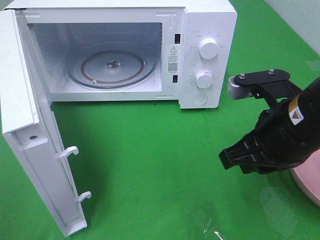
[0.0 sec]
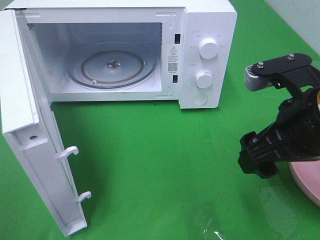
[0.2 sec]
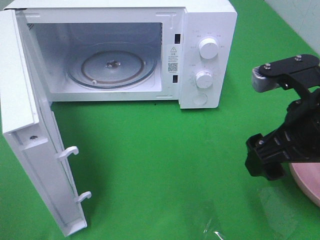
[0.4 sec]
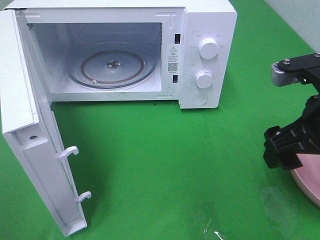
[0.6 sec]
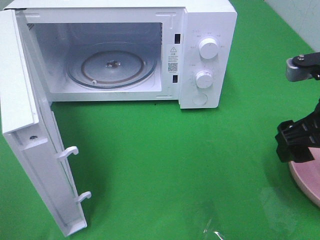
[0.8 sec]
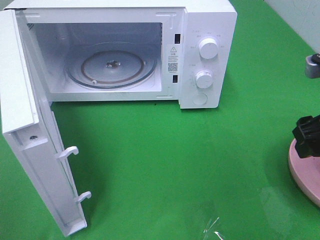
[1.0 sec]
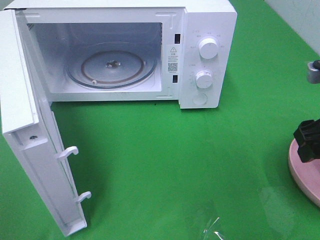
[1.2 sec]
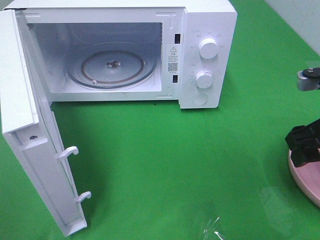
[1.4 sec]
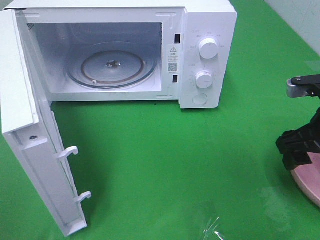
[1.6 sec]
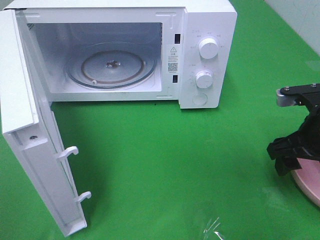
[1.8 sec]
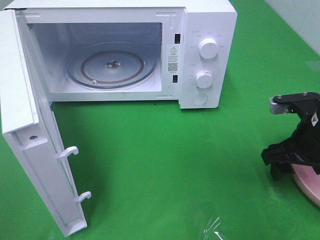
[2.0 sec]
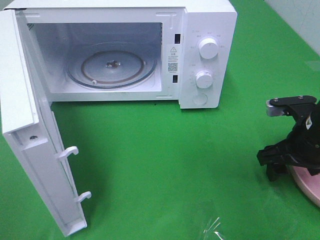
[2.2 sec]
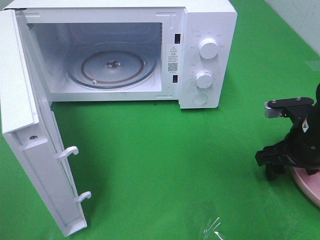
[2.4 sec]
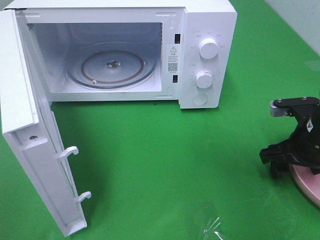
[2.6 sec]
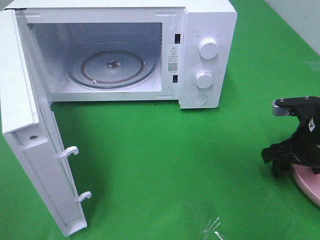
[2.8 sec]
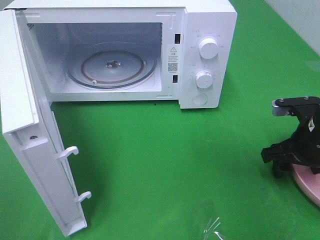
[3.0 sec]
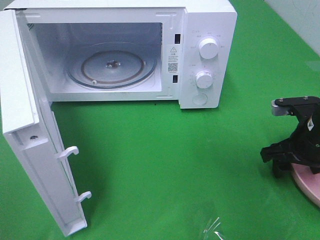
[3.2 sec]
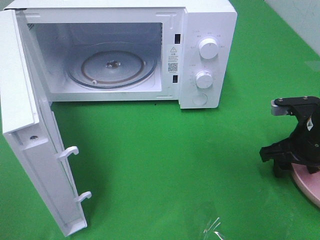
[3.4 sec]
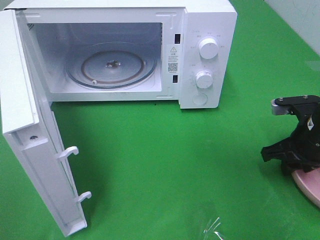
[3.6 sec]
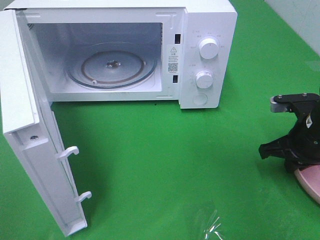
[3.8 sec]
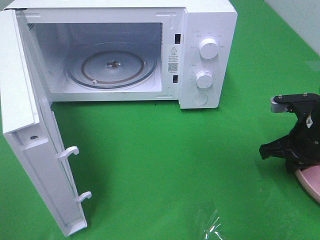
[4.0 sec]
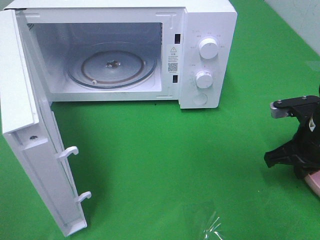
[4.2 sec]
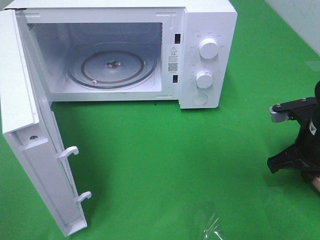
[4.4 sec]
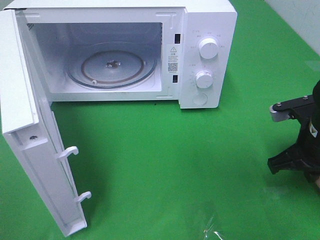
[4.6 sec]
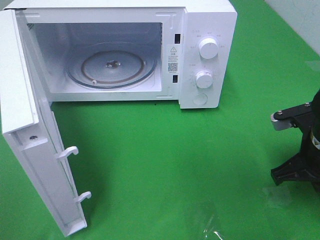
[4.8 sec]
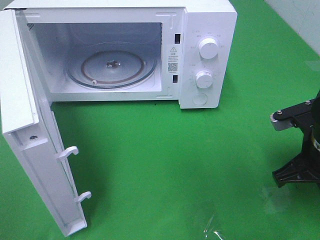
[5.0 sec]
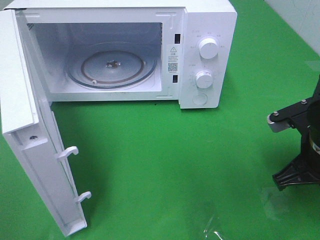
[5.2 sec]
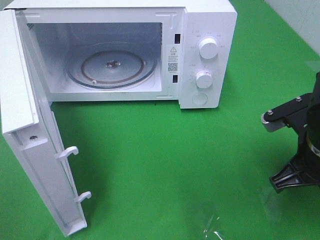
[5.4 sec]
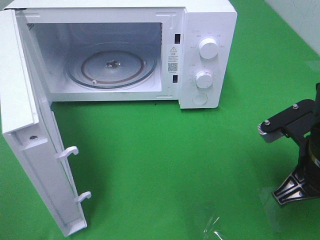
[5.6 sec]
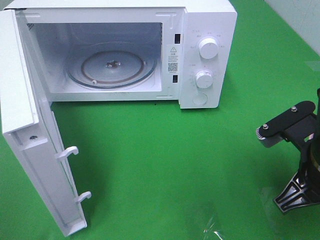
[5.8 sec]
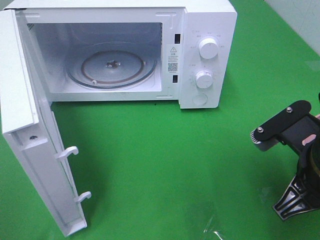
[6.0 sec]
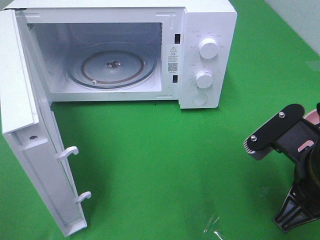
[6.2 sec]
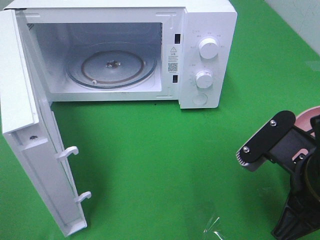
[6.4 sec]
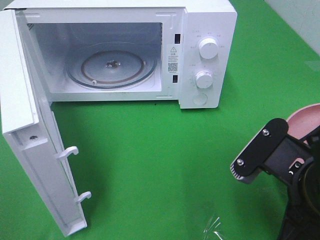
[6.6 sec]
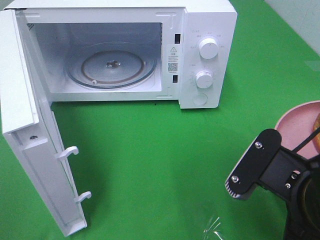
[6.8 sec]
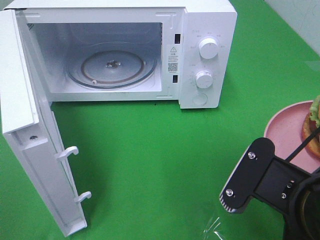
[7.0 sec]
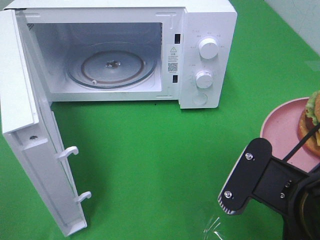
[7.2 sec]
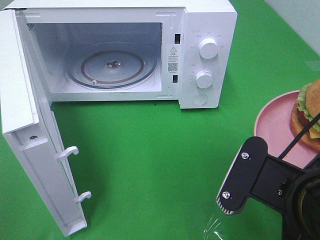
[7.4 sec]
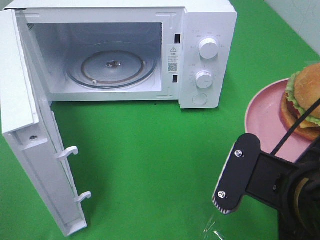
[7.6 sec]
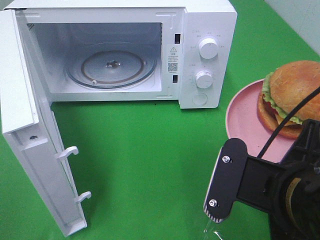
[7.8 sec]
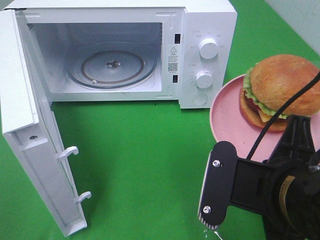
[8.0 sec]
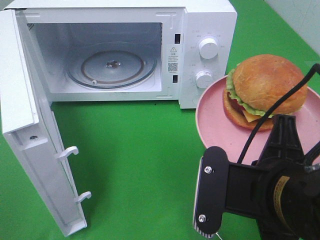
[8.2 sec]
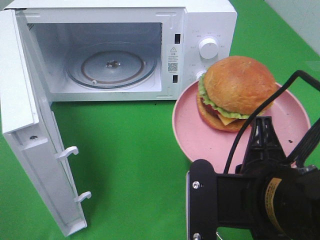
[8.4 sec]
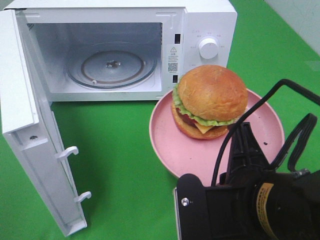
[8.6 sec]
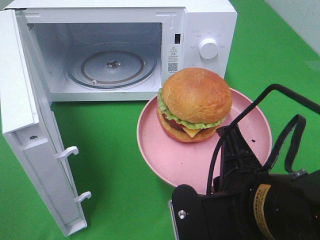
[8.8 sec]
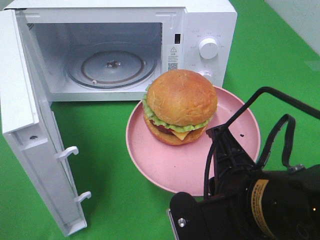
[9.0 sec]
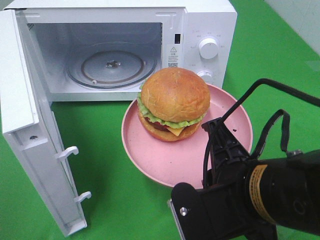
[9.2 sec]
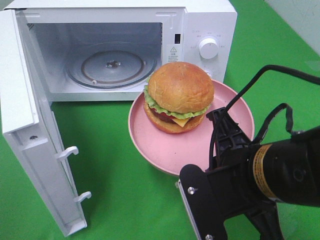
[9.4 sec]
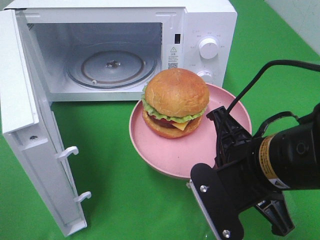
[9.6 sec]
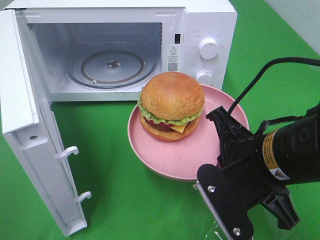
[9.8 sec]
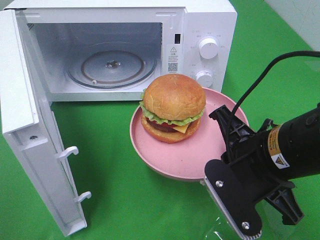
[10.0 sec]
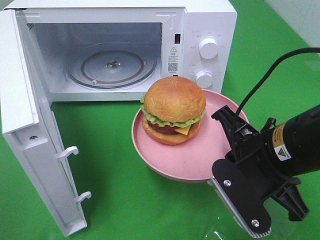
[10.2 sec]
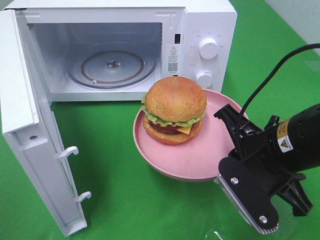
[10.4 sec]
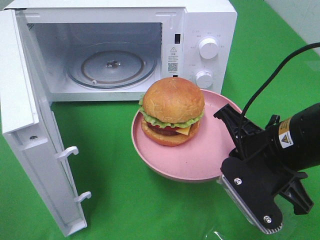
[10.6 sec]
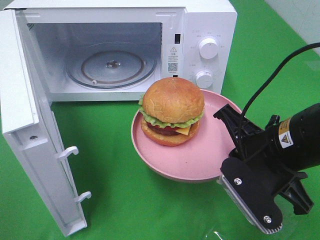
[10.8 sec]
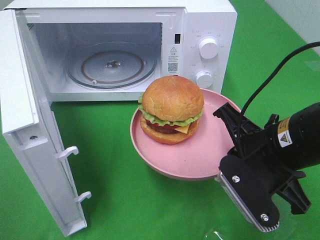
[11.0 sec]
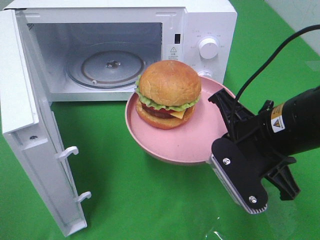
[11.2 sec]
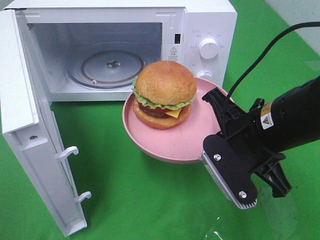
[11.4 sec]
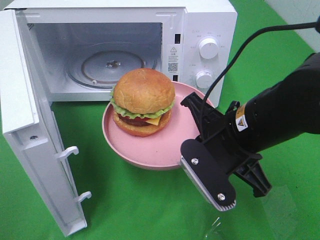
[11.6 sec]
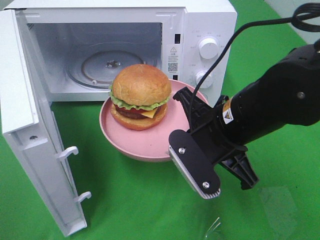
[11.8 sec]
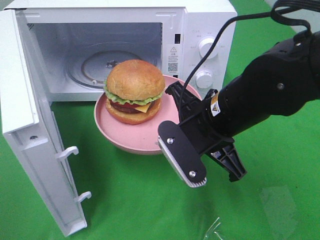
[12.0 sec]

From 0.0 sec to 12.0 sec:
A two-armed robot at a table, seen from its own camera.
Task of the whole recording: Heat the burger.
Step, from 0.0 sec to 4.4 sec: Right hand: grab the plate with the hamburger.
From 0.0 sec to 1.6 sec: The right gripper travels to the right by roughly 10 cm, and opens its fingers.
From 1.6 sec to 3.0 sec: The right gripper moves downward, approximately 5 cm.
From 3.0 sec to 4.4 sec: The right gripper closes up.
From 4.4 sec to 6.0 sec: The right gripper is displaced backward, to the left and upward by some 15 cm.
From 6.0 sec to 7.6 sec: The right gripper heads backward and to the left, covering about 10 cm.
From 9.0 sec to 10.4 sec: The right gripper goes about 10 cm forward and to the right.
From 10.4 sec to 12.0 sec: The right gripper is displaced to the left and forward by some 10 cm.

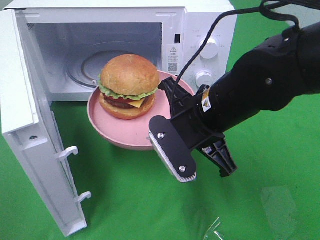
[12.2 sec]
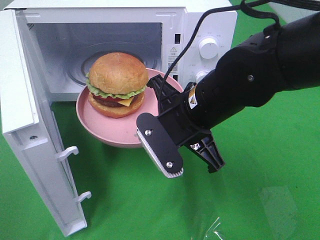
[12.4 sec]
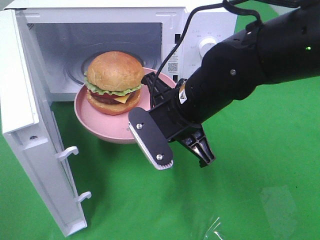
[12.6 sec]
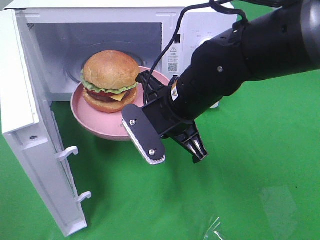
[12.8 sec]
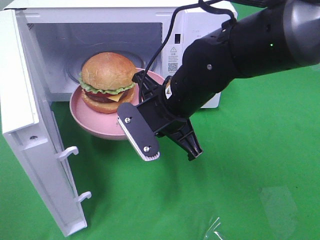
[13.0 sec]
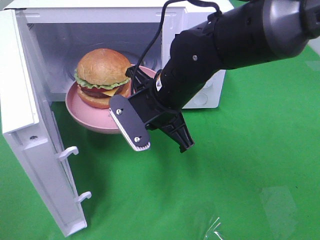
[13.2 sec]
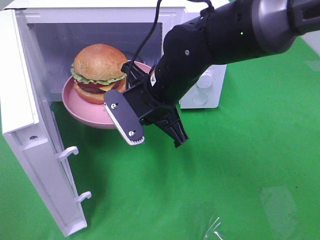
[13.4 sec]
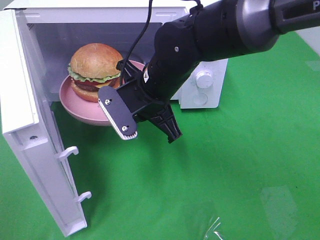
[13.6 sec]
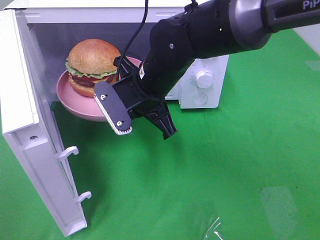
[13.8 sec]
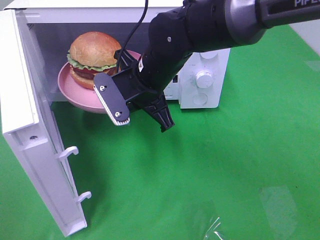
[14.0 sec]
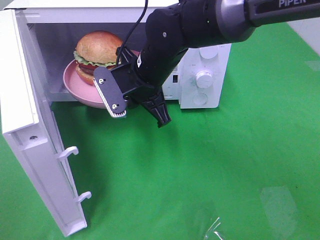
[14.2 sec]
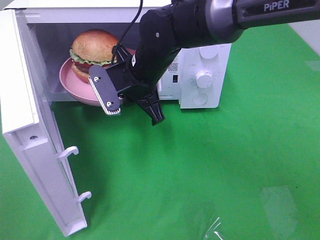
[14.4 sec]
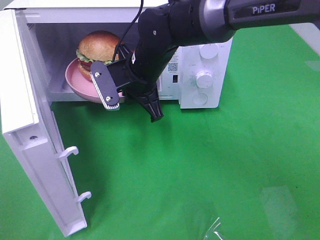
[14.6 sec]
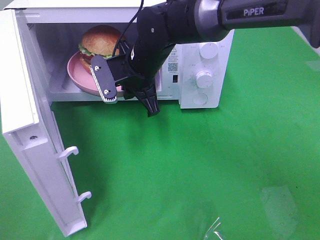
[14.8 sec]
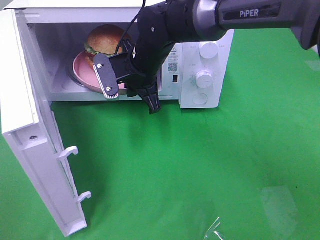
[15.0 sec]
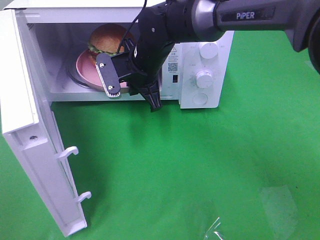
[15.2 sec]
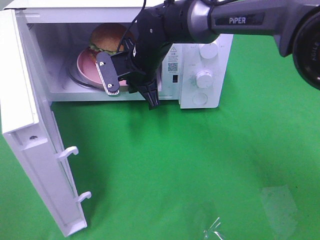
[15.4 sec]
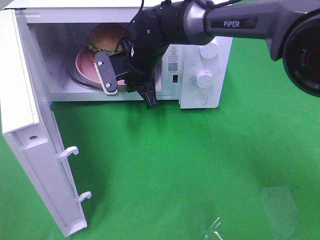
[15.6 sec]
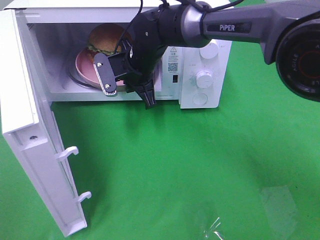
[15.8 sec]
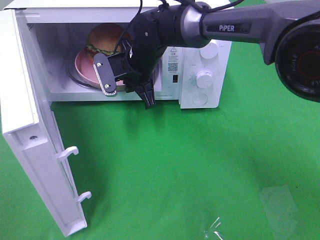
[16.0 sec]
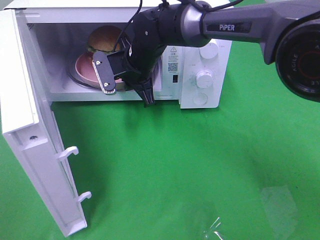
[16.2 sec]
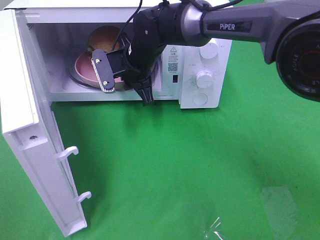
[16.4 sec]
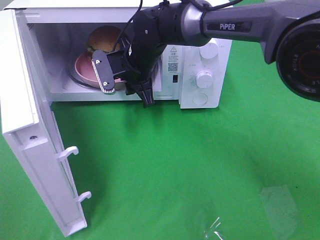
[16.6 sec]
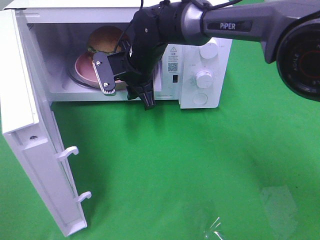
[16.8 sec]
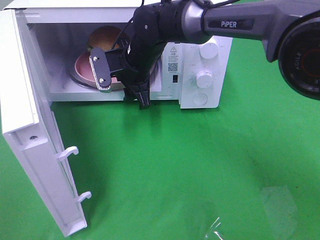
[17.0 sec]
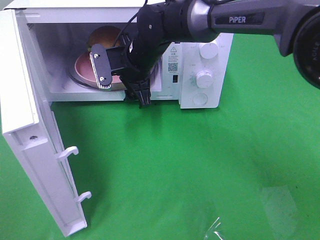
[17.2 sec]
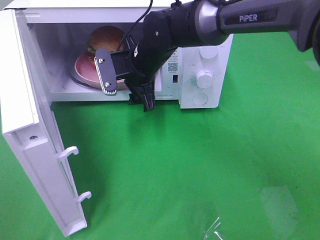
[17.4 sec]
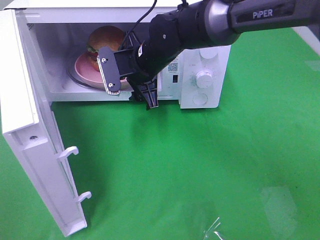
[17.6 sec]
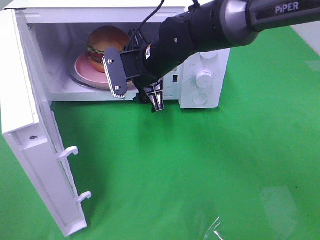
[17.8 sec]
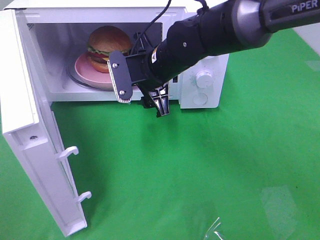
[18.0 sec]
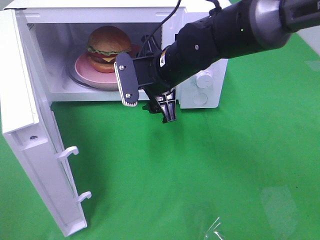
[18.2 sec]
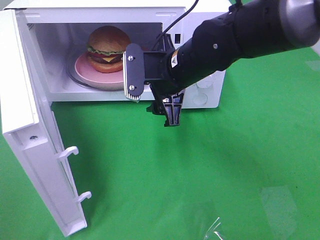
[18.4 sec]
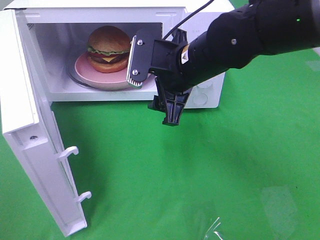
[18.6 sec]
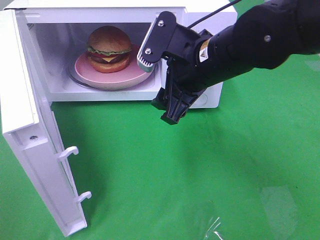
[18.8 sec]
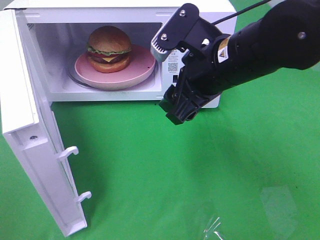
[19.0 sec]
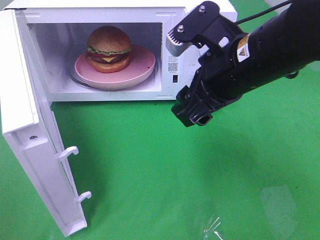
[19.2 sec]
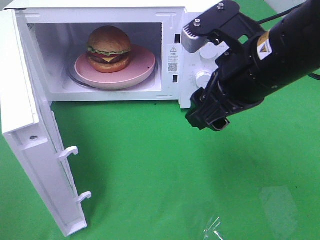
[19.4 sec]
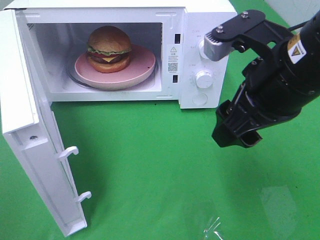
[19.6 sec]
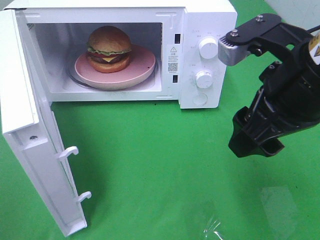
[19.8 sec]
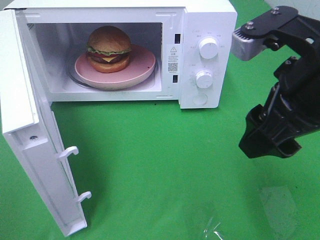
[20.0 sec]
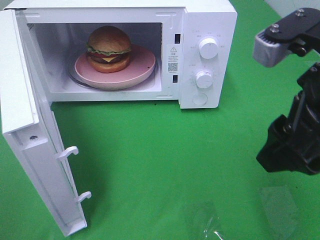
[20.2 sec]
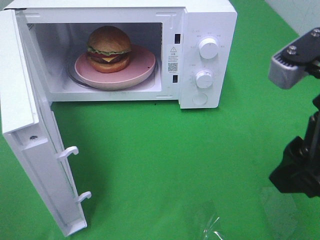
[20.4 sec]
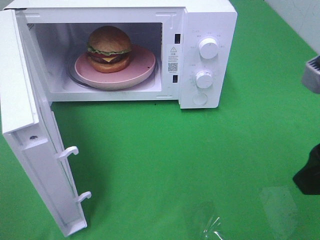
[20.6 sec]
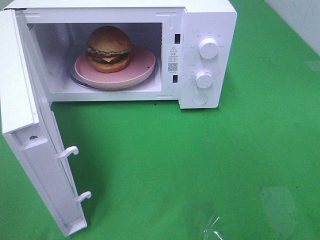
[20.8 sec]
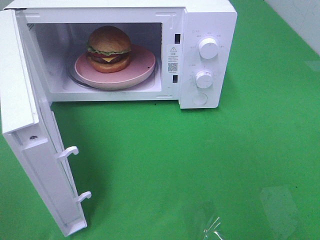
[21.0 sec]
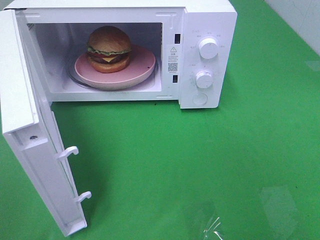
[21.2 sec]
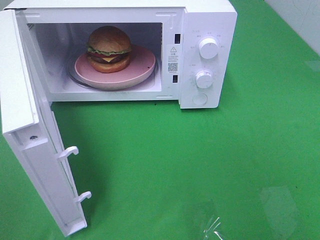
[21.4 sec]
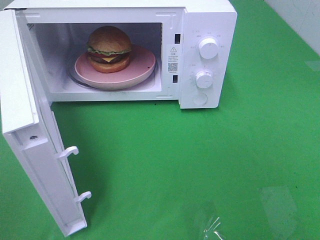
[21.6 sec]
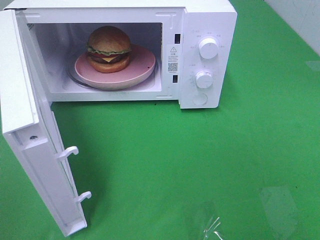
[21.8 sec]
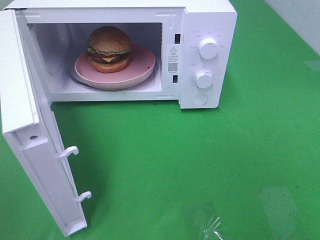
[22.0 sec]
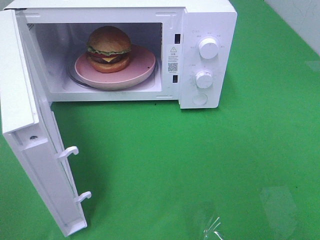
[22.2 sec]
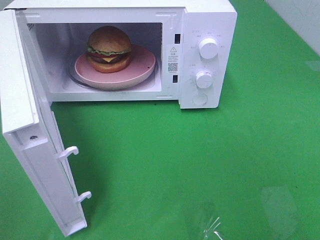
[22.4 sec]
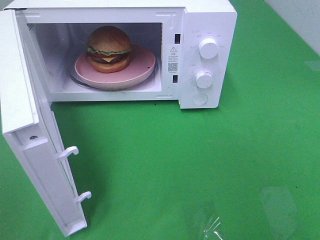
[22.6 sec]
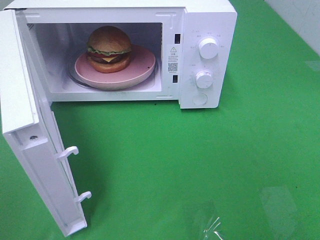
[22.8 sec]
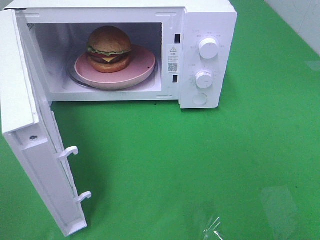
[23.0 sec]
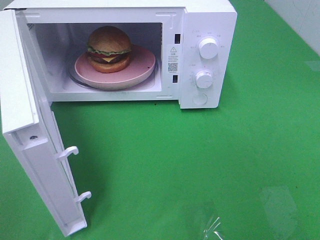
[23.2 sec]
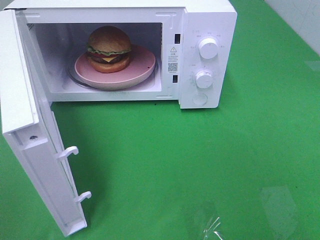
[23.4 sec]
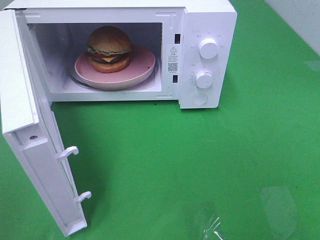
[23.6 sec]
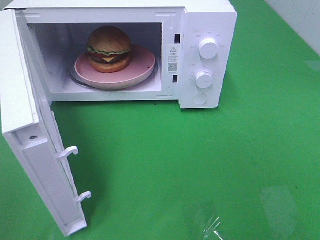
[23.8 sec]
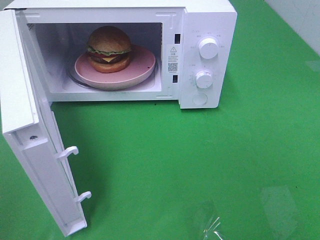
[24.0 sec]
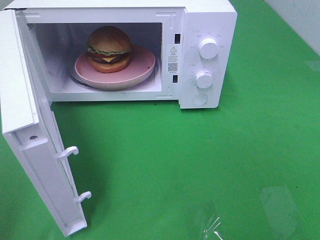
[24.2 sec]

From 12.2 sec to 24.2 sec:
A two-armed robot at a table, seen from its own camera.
Task of the whole recording: Heat the burger.
Step, from 12.2 sec to 17.8 sec: Right hand: place the plate in the microwave.
From 12.2 sec to 13.8 sec: The right gripper moves forward and to the left, roughly 10 cm.
From 13.8 sec to 15.2 sec: The right gripper travels forward by some 10 cm.
From 15.2 sec to 16.6 sec: The right gripper opens up.
From 16.6 sec to 18.2 sec: The right gripper shifts roughly 10 cm backward and to the right, and opens its fingers.
From 18.2 sec to 19.8 sec: The right gripper goes about 20 cm backward, to the right and upward.
From 19.8 sec to 21.2 sec: The right gripper heads to the right and backward, covering approximately 20 cm.
